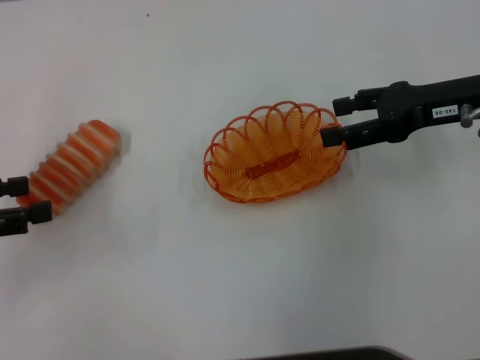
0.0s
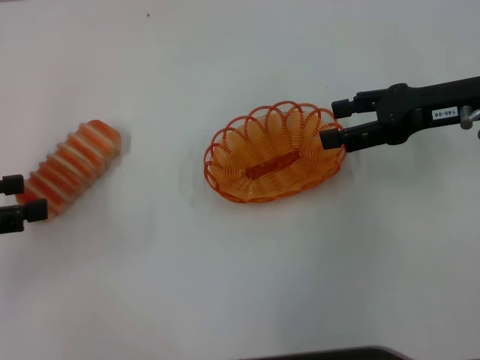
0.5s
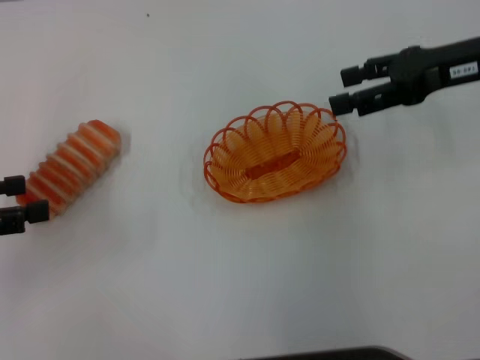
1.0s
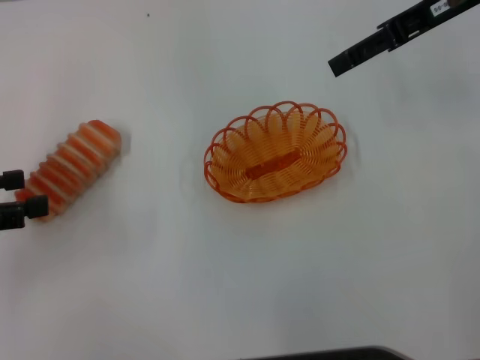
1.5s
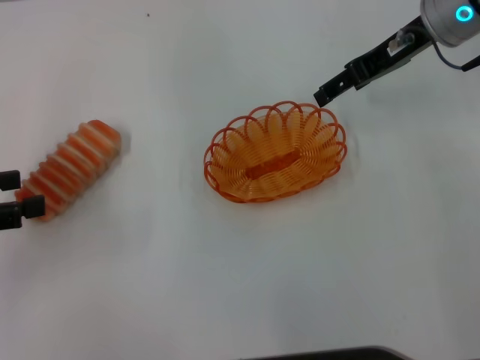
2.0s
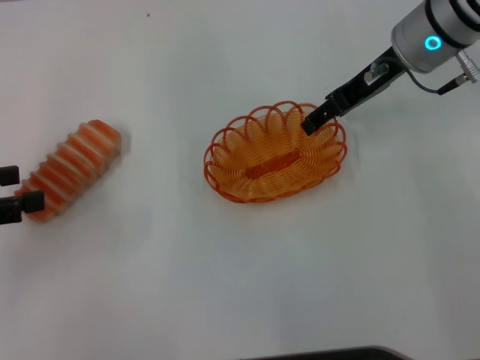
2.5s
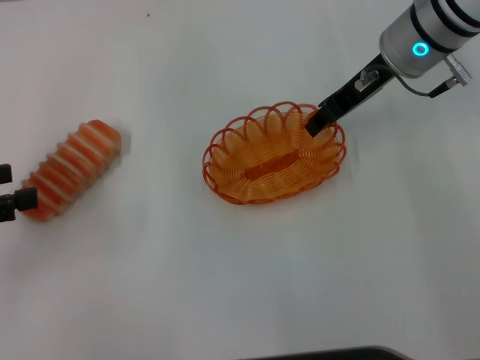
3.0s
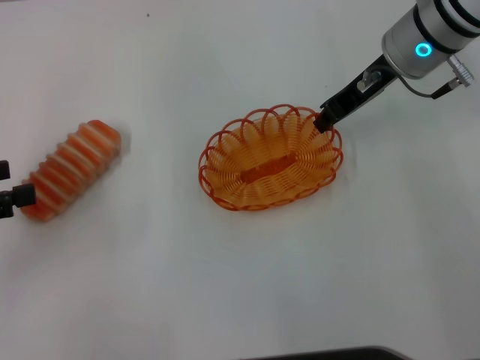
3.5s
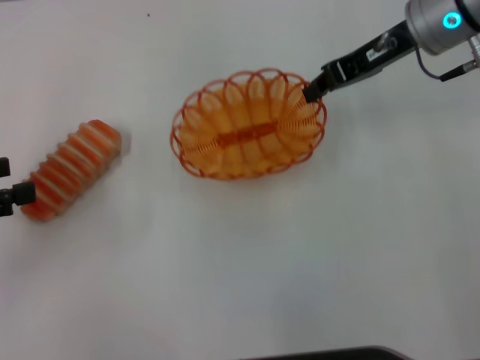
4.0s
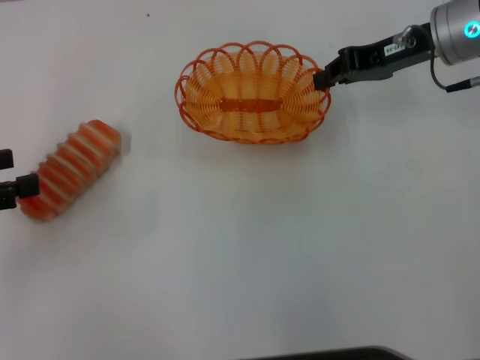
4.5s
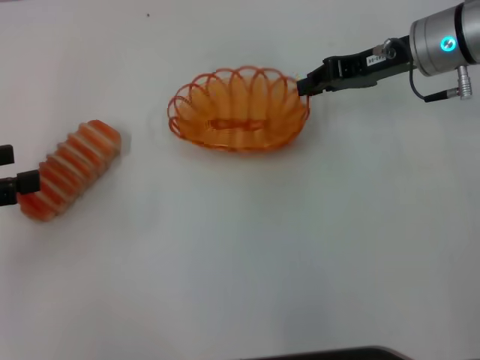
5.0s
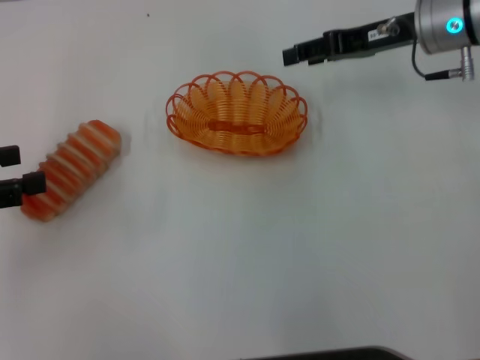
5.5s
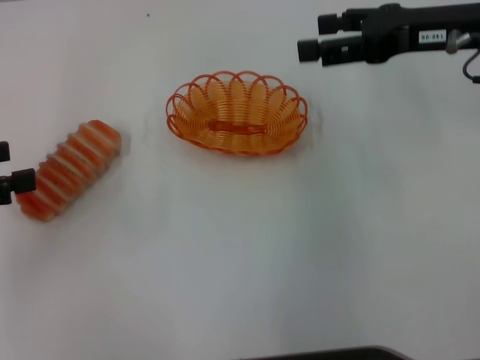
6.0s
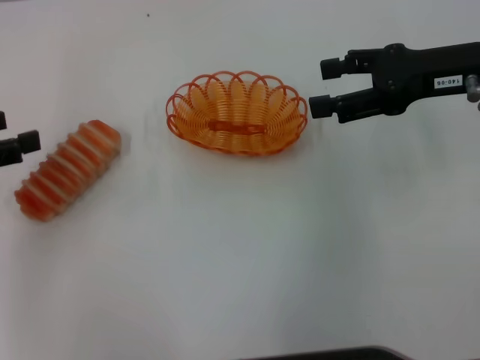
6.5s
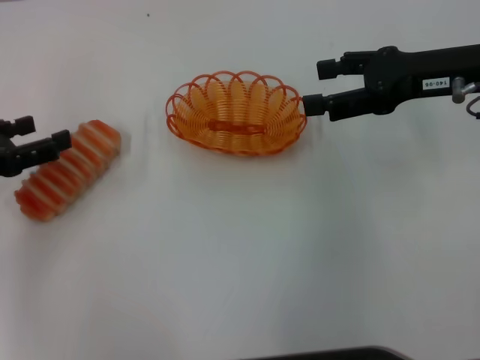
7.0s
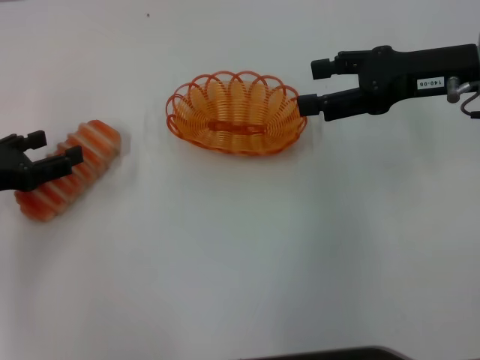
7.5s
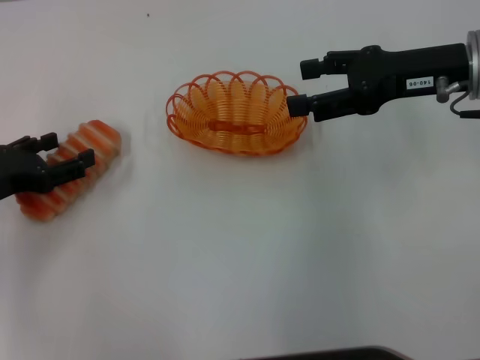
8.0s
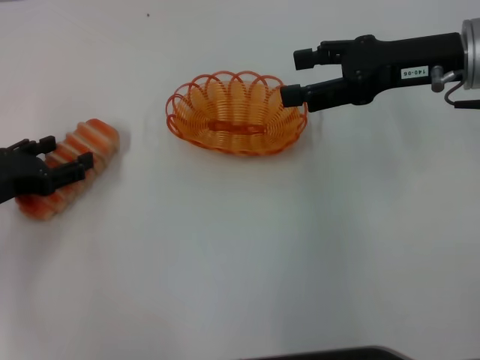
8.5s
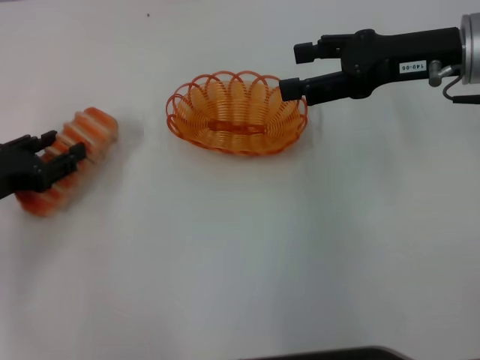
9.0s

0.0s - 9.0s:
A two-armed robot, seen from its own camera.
Step, 0.0s - 3.5s: Pick up the basket with the right gripper.
Step, 4.0s - 5.0s: Place the basket in the center of view with the right gripper.
Step, 5.5s - 8.5s: Pick up the long bread with the left gripper.
0.0s - 2.0s: The right gripper is displaced forward and to the left by about 10 cm.
2.0s - 4.5s: The right gripper closes up.
4.5s - 7.0s: The right gripper moves backward, some 5 cm, and opens. The left gripper ends up roughly 5 cm from where it was.
7.0s - 9.0s: The left gripper shifts approximately 5 cm downward, and closes up.

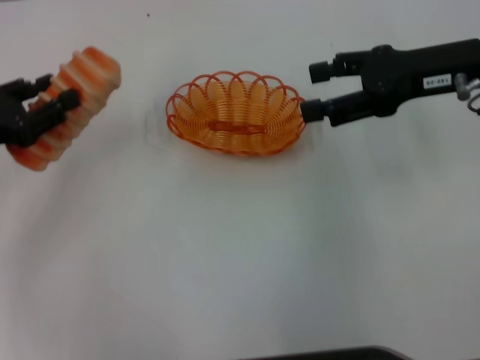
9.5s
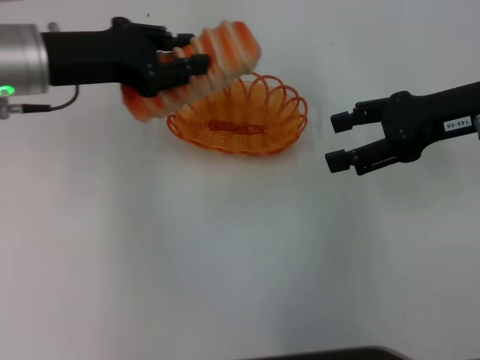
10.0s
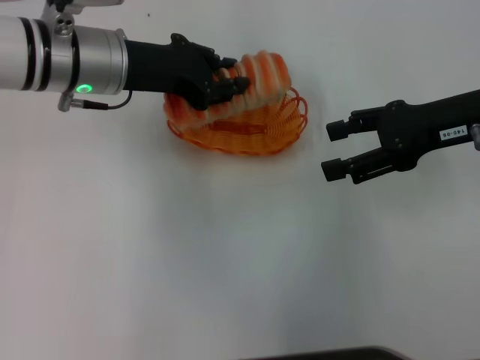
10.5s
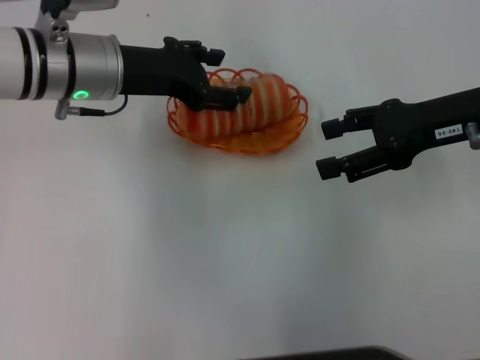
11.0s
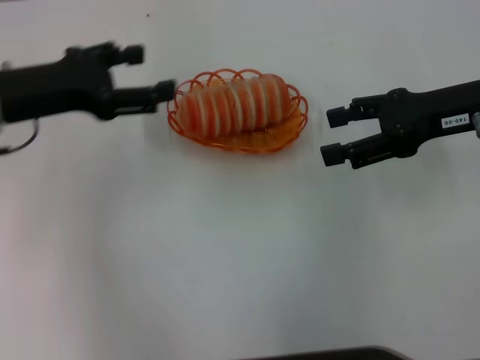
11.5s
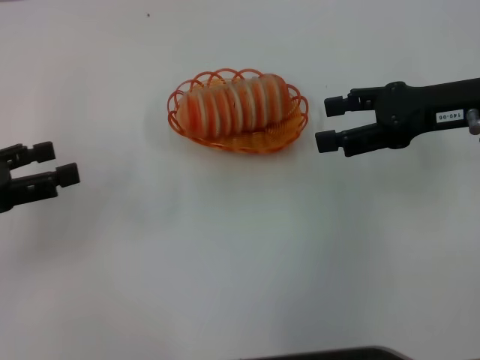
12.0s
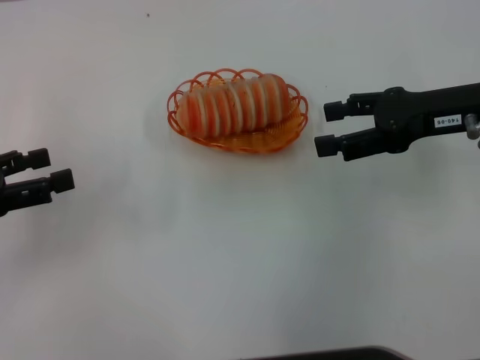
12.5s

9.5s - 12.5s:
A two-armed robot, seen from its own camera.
Step, 9.5s - 10.5s: Place the long bread into the basket with the left gripper.
9.5s - 11.0s: The left gripper heads to the right and forward, covering approximately 20 cm.
11.0s - 12.5s: The left gripper heads to the left and backward, covering about 25 cm, and opens.

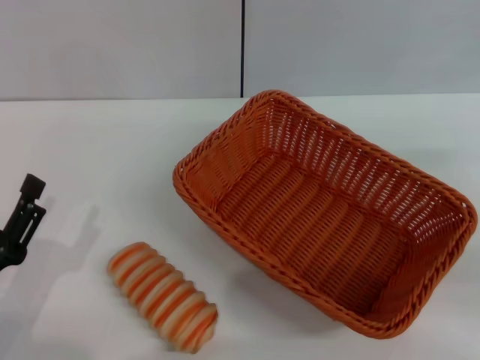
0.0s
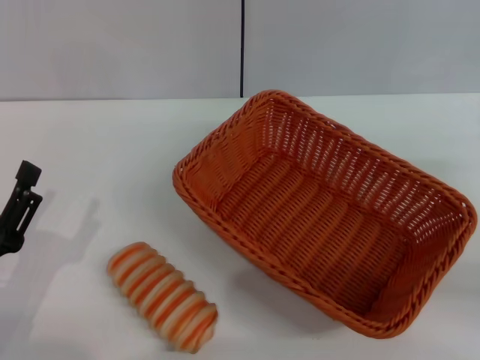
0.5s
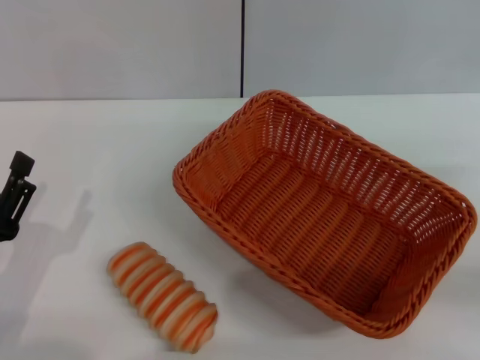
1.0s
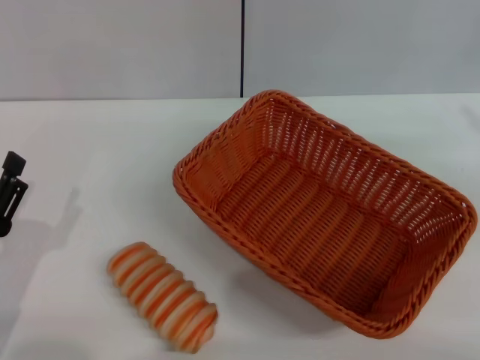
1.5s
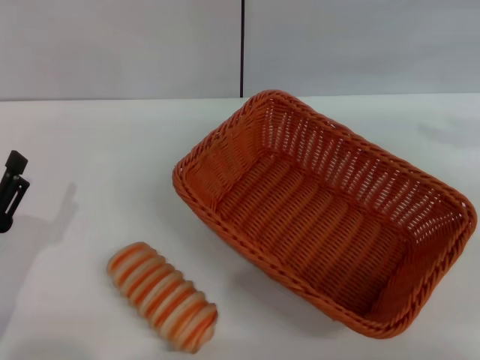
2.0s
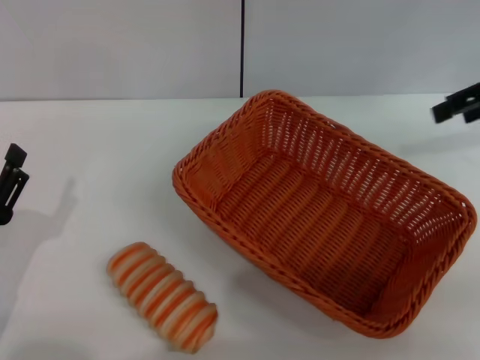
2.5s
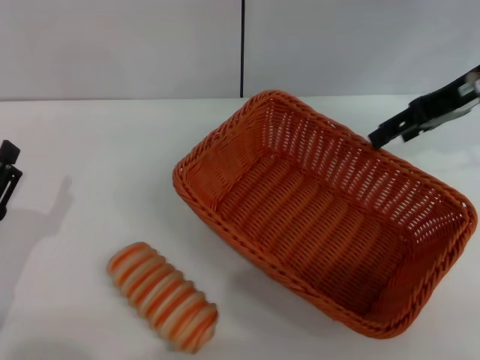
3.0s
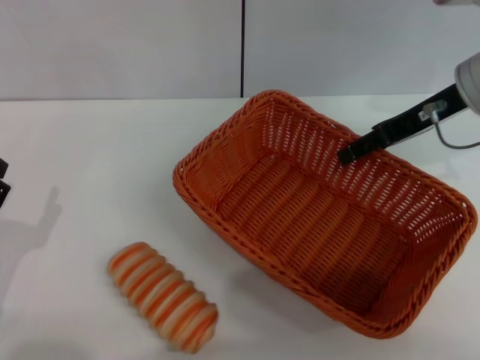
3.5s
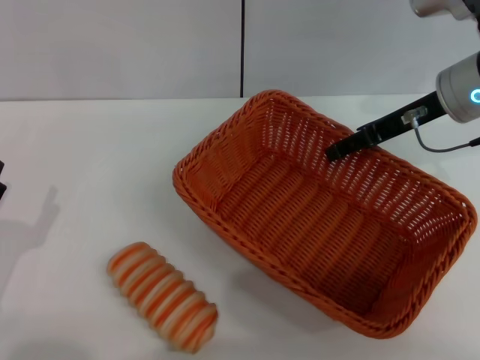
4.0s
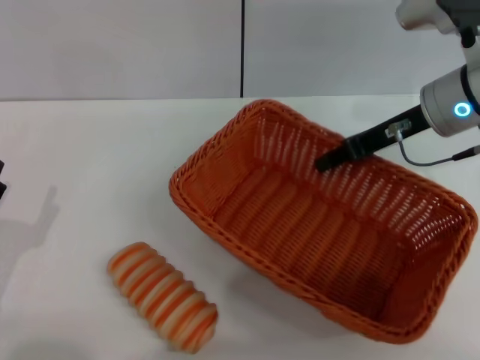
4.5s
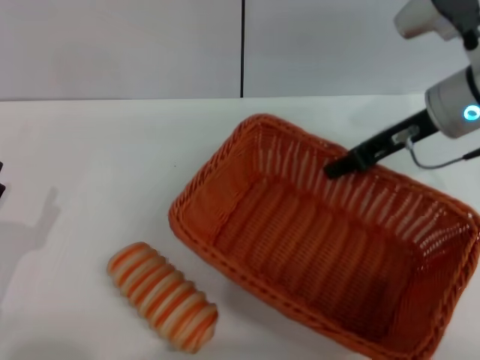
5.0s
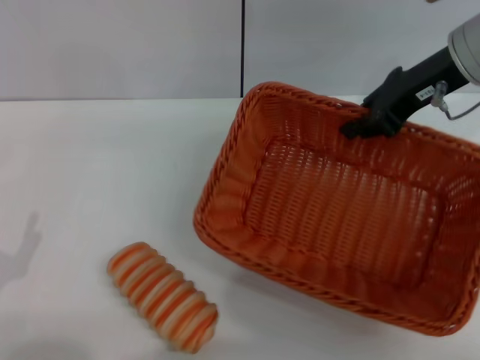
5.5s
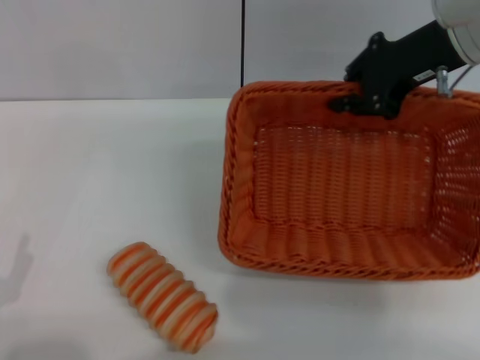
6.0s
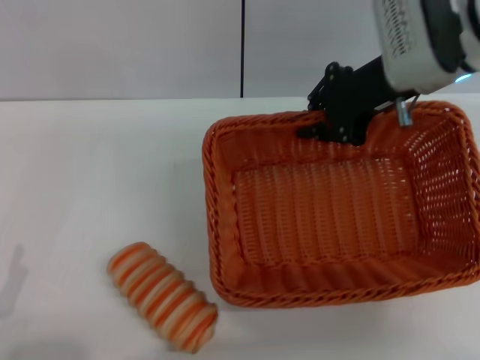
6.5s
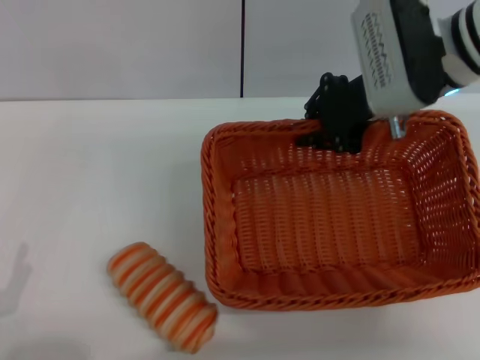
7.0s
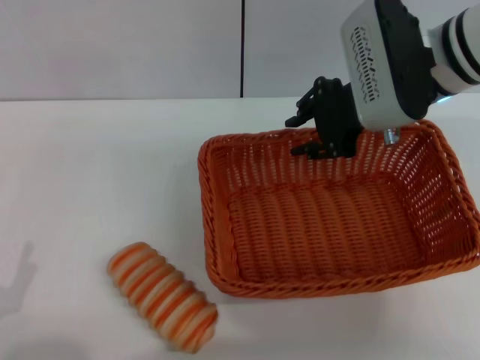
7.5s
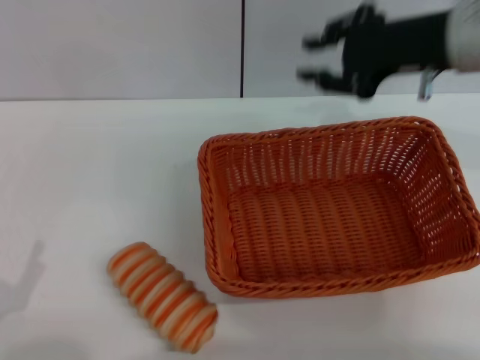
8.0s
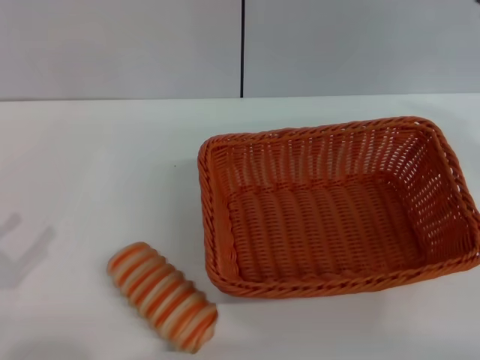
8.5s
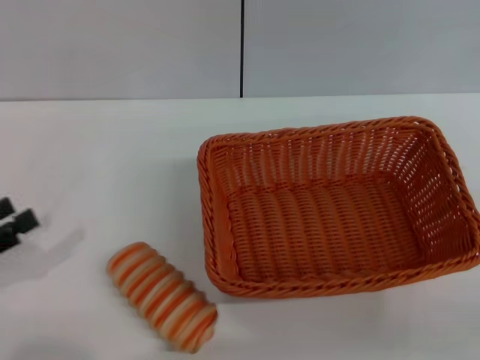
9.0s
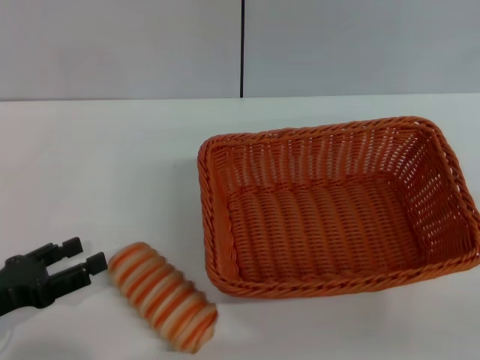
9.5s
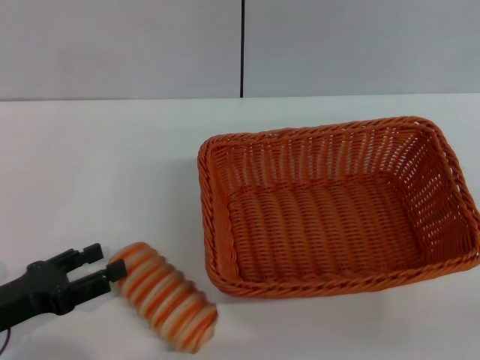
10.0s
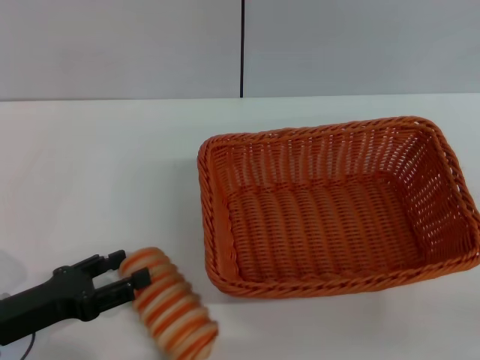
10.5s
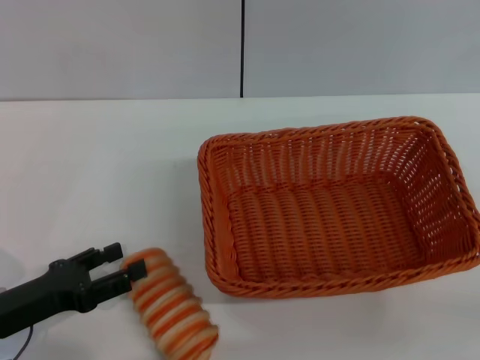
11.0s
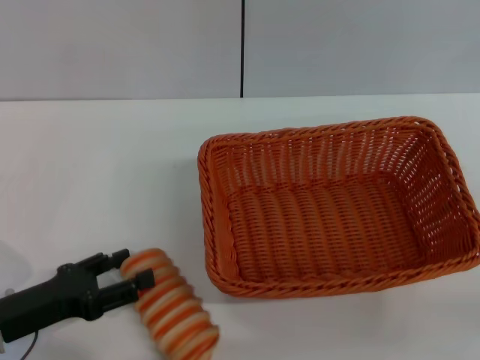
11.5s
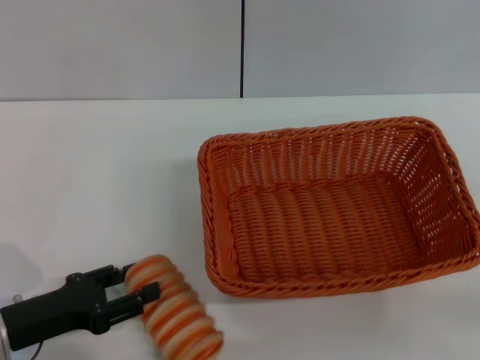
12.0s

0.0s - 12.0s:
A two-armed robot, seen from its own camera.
Step, 0.0s - 5.0s: Pick up the light basket with the right gripper.
Step, 5.5s - 7.5s: Place the light basket in the center of view with the right gripper.
2.0s - 4.0s: The right gripper heads to the left, downward and forward, covering some 20 cm.
4.0s - 6.0s: The right gripper goes some 5 cm upward, and closes, while the left gripper moves backward, about 5 cm.
6.0s - 8.0s: The right gripper opens its fingers.
8.0s - 10.0s: The right gripper travels to the right, backward and downward by about 30 cm; the left gripper goes about 10 cm forward.
10.0s - 12.0s: The grippers make only small movements.

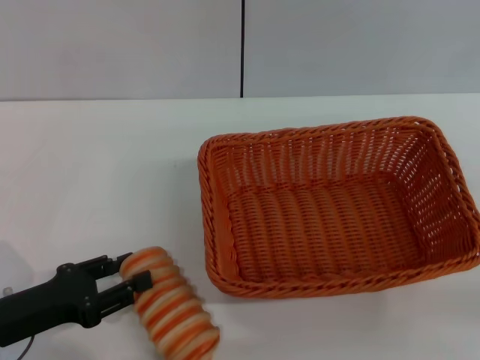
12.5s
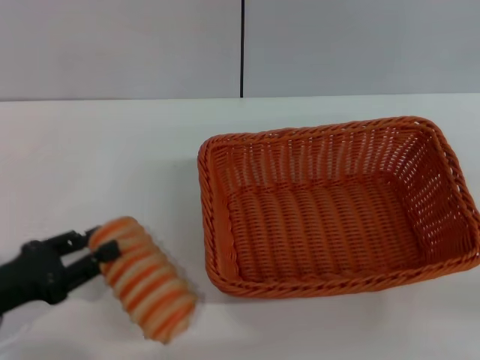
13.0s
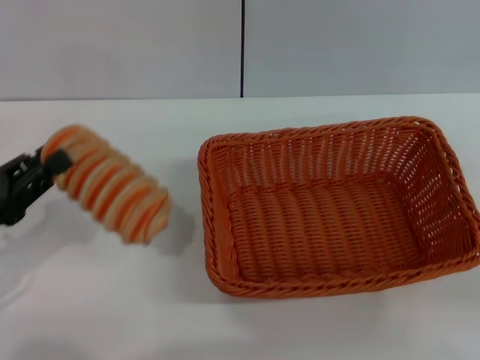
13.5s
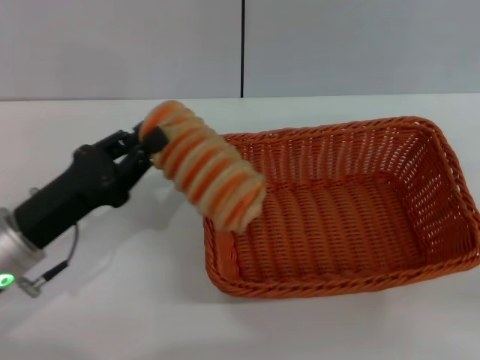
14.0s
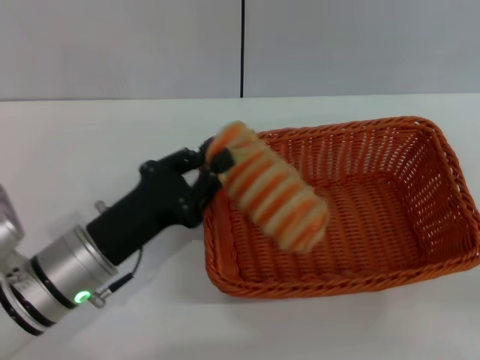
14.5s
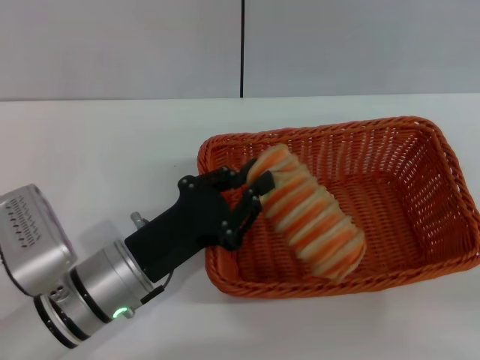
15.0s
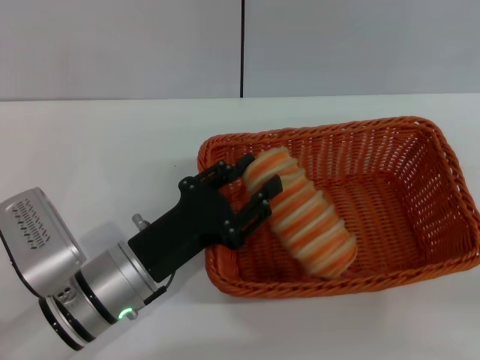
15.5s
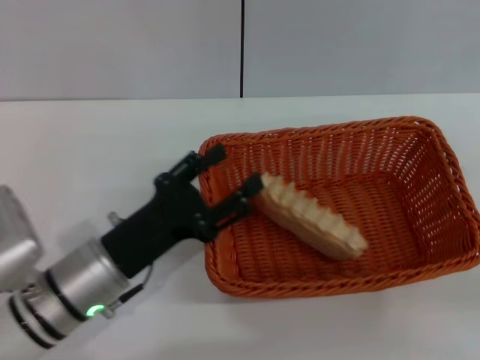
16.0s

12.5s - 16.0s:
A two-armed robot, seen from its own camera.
Step, 13.5s - 15.5s: Place the long bread into the light basket with the left gripper.
12.5s - 14.5s: The left gripper is displaced to the right by some 10 cm, and closes up.
14.5s - 16.0s: The left gripper opens its fingers.
